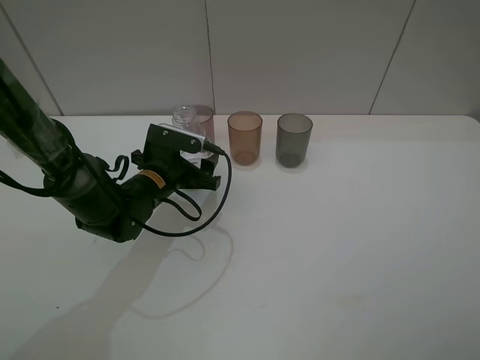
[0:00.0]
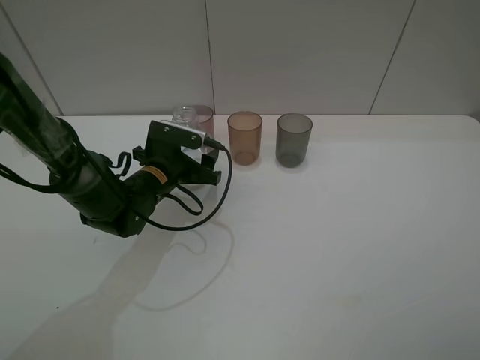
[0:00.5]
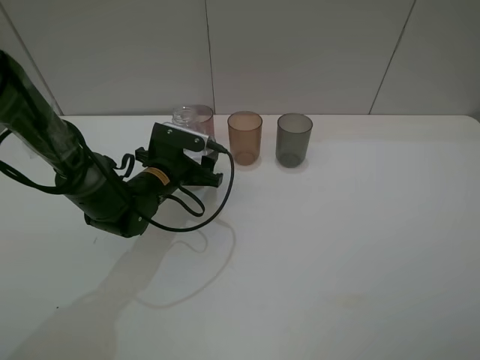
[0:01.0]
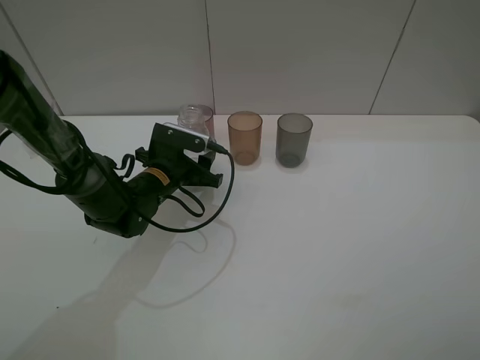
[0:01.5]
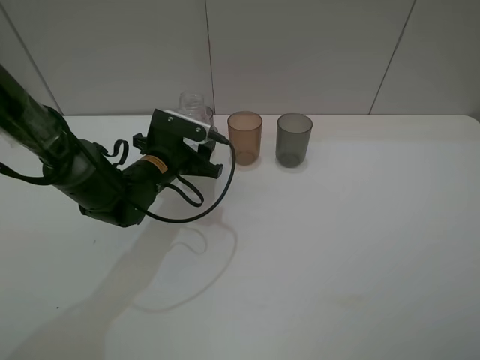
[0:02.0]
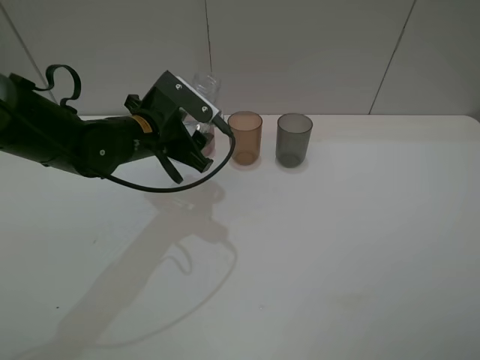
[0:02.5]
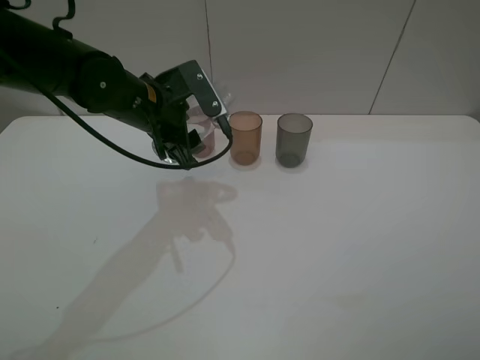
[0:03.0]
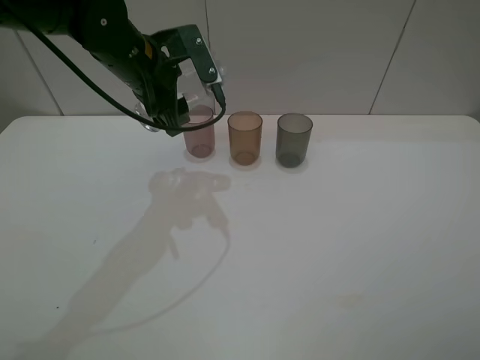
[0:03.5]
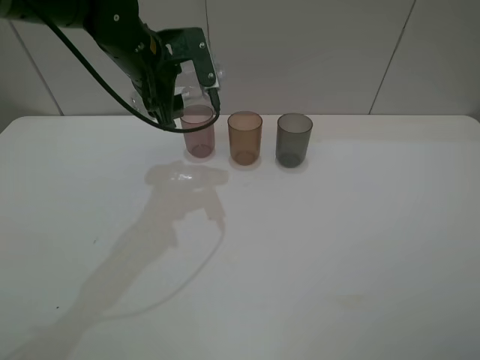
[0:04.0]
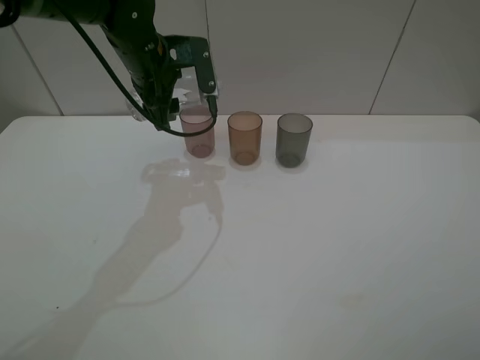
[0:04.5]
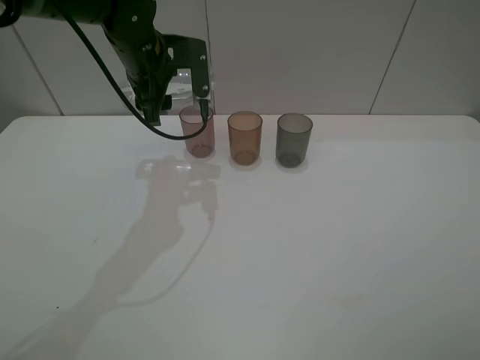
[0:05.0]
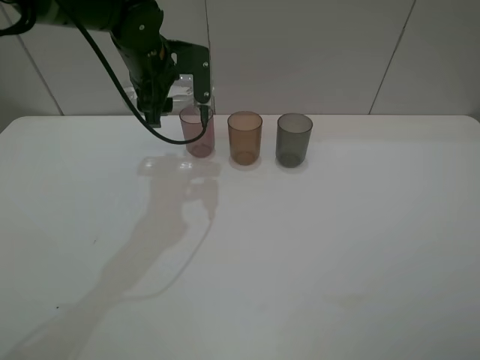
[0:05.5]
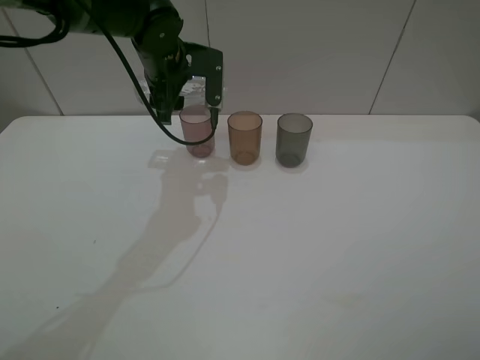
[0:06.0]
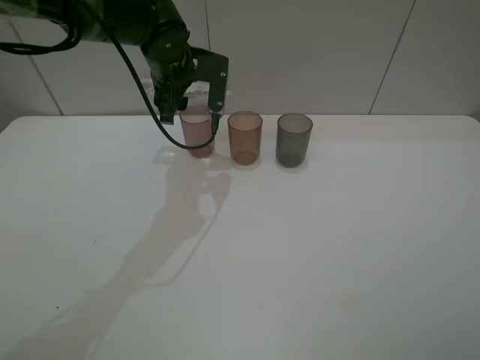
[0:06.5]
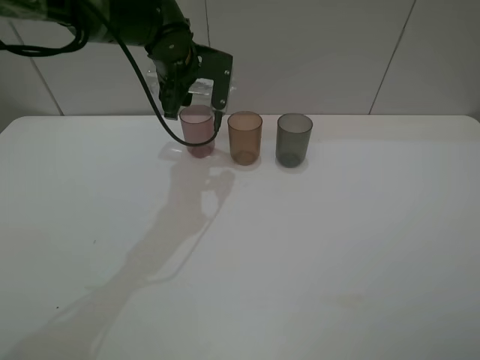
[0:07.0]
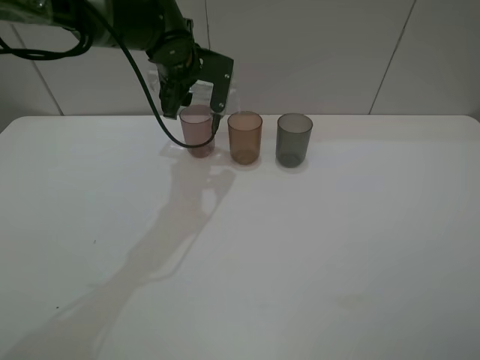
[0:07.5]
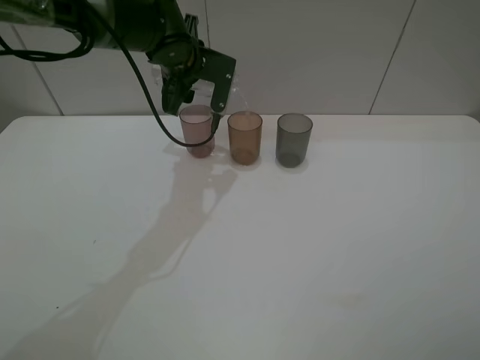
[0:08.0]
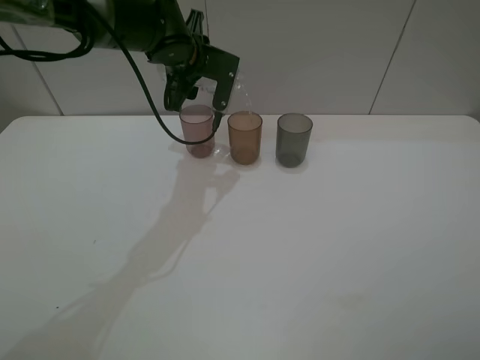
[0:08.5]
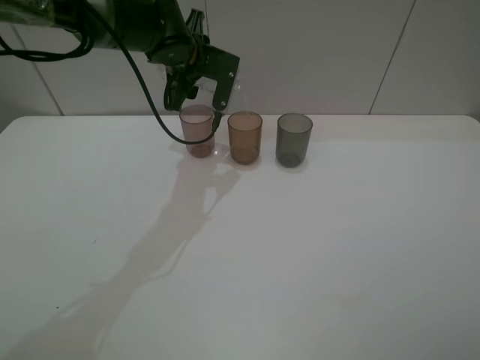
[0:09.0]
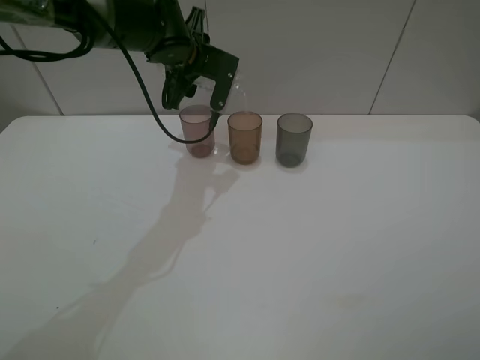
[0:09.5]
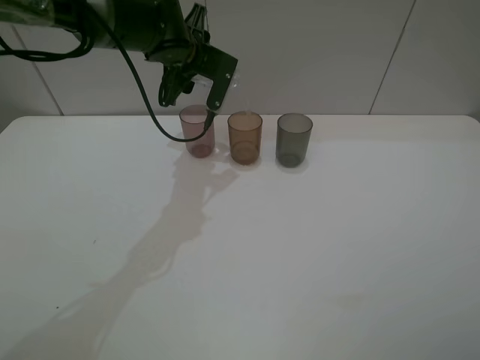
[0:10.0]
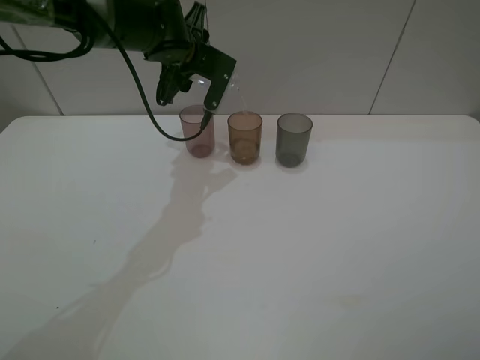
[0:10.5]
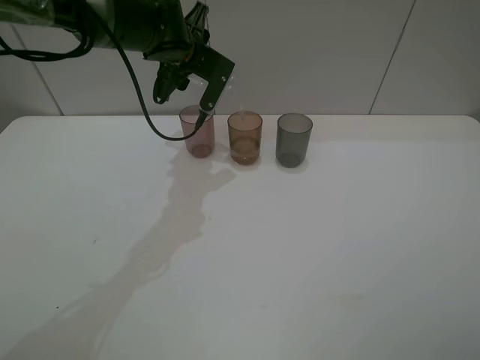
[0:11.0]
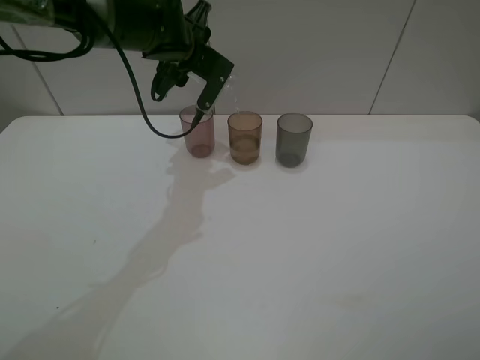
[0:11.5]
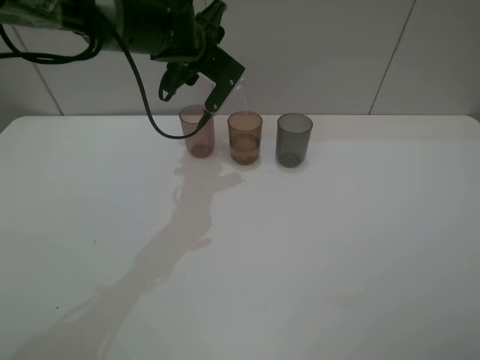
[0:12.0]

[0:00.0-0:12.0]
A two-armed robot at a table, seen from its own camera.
Task of the whole recording: pick up the bottle filled with water and pour water into the middle cup of the three cups.
Step, 0:02.0 to 0:07.5: Pour water from transparent bottle to red cup with the left gripper.
0:00.0 to 0:02.0: The left gripper closes.
0:02.0 to 0:04.0: The left gripper moves upward, about 15 cm.
0:06.0 to 0:08.0: There are only small adjustments of the grippers.
0:08.0 to 0:10.0: The grippers stay close to where they were, moving slightly.
0:10.0 to 0:12.0: The grippers make only small movements.

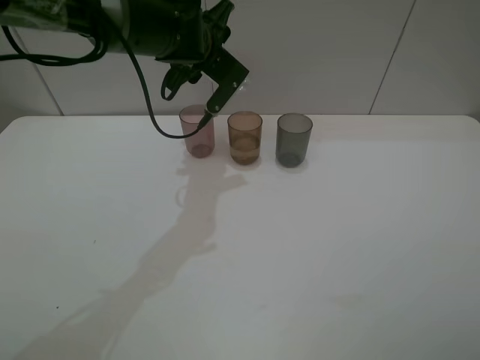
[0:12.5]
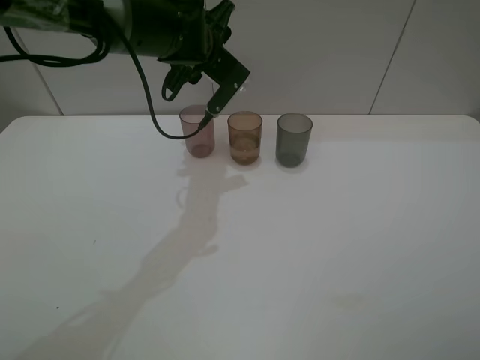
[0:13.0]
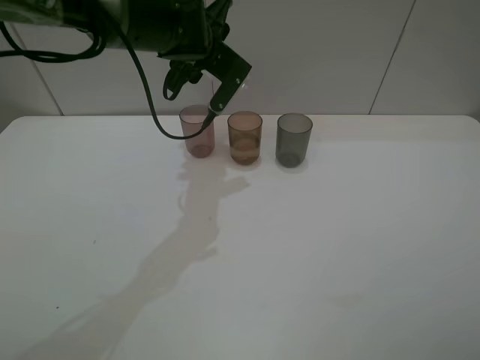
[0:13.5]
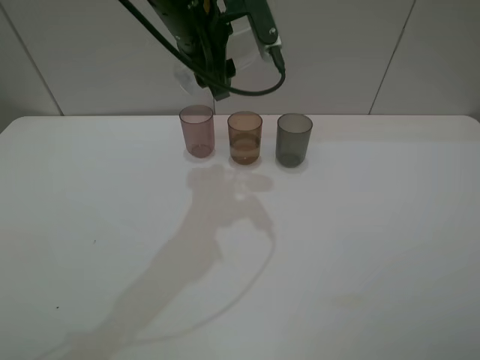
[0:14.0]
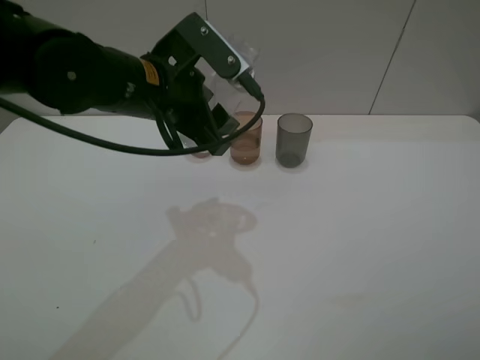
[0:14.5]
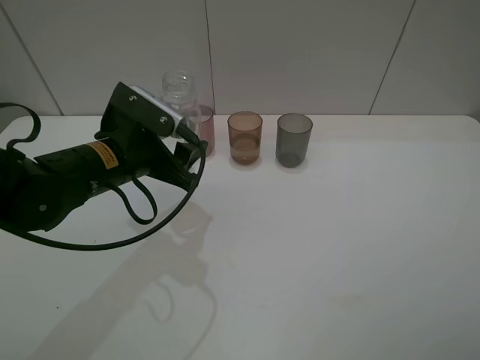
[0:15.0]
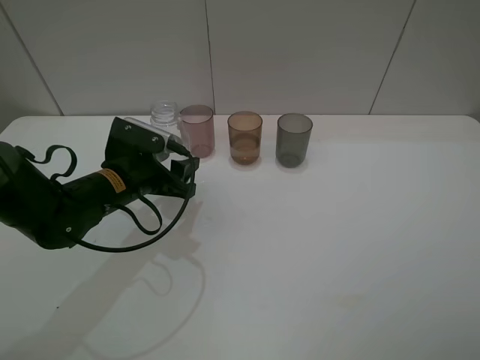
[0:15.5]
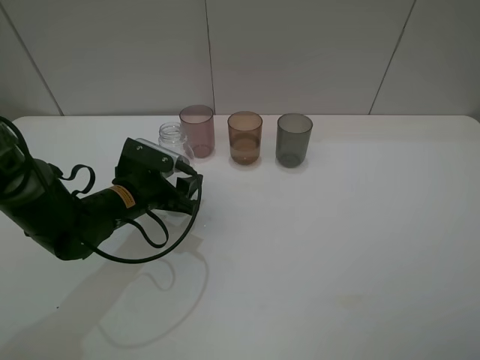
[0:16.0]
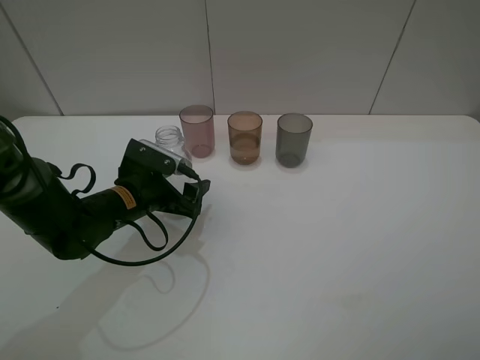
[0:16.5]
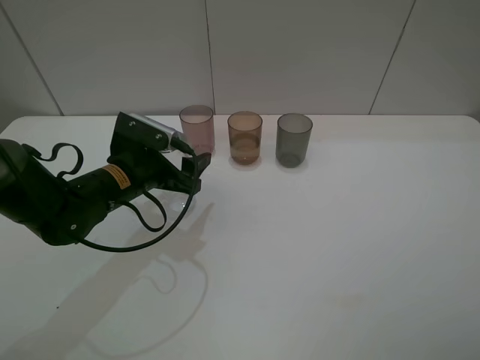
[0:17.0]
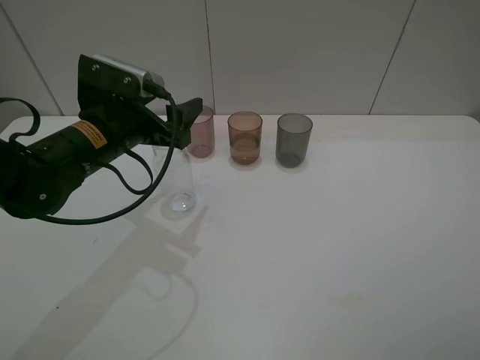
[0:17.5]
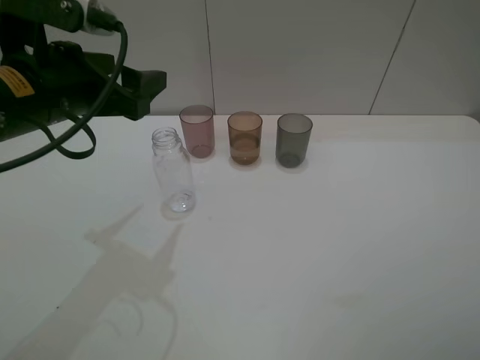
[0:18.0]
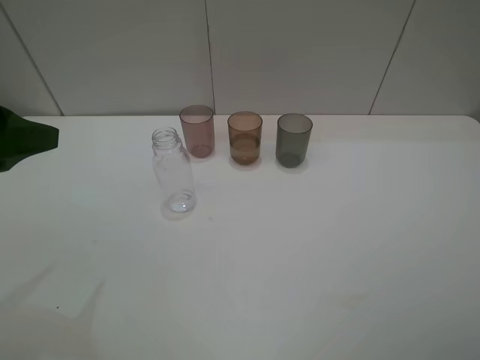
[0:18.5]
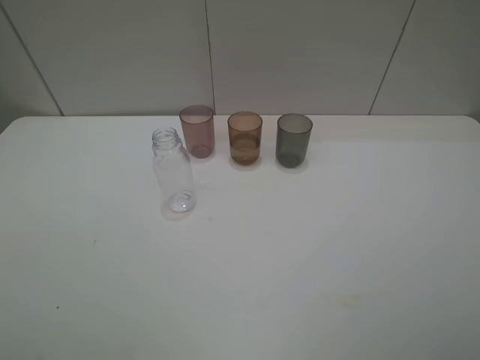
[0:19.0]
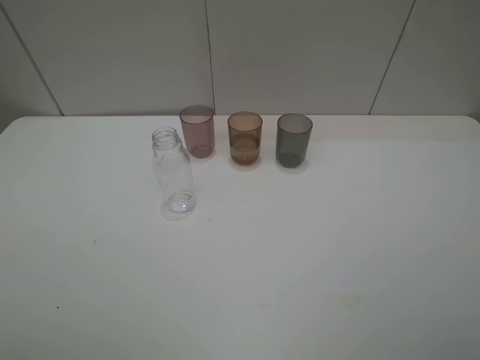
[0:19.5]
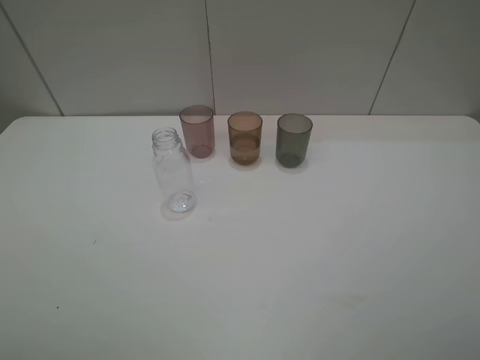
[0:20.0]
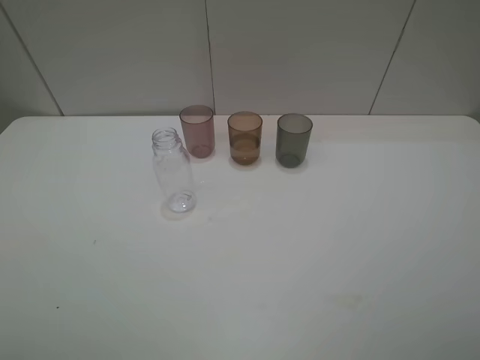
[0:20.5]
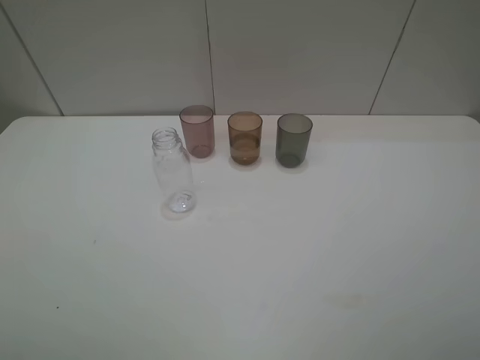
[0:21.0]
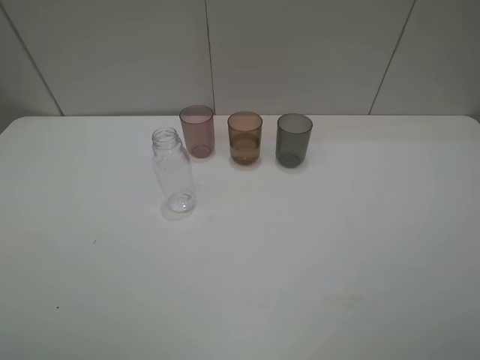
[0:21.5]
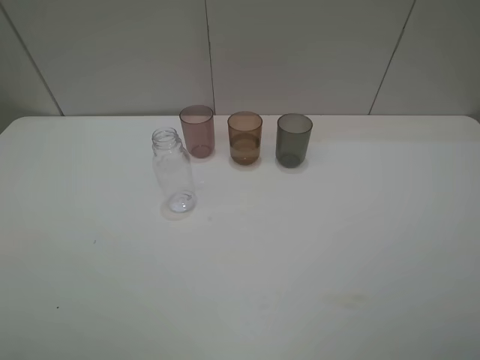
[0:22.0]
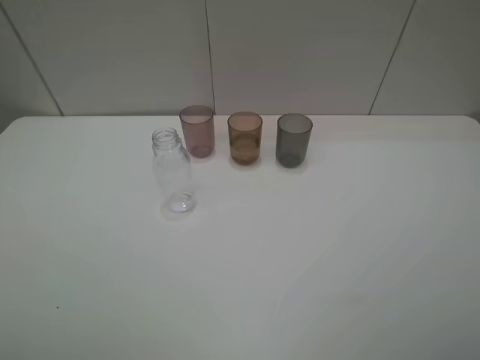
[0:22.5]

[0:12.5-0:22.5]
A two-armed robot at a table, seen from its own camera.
Task of the whole recording: pick up the bottle filled with water and pour water into the middle cup of the three cups.
Step, 0:12.5 to 0:17.5: Place the transparent bottle with the left gripper.
0:12.5 to 0:14.5: The left gripper heads backward, covering about 15 cm.
0:14.5 to 0:16.5: The left gripper is displaced downward and to the left by approximately 20 cm, and opens.
0:16.5 to 0:18.5: The left gripper goes some 25 cm upward, backward and to the left.
0:18.5 to 0:20.5: The left gripper goes roughly 15 cm backward.
